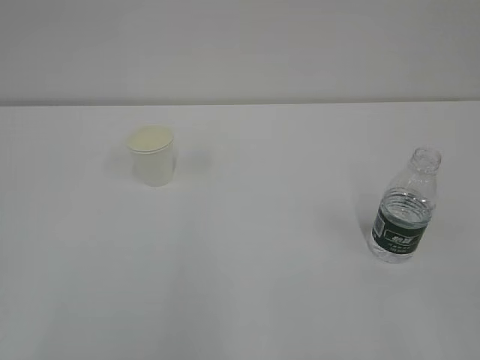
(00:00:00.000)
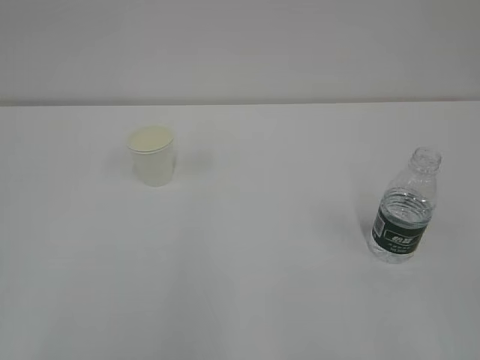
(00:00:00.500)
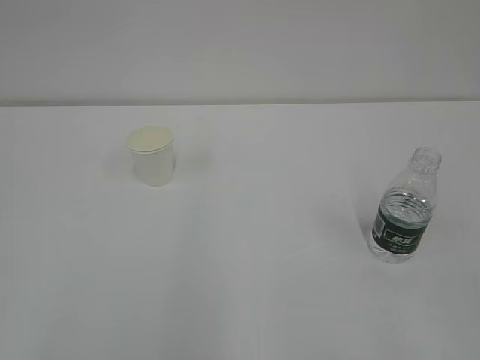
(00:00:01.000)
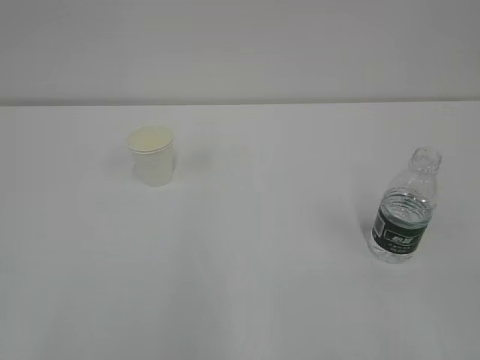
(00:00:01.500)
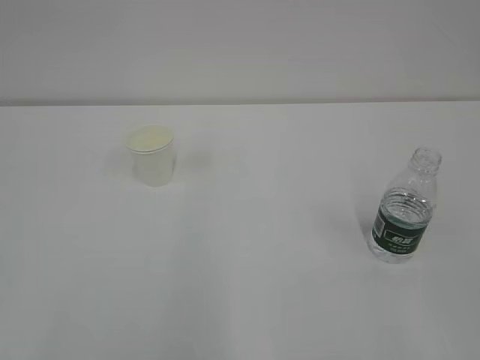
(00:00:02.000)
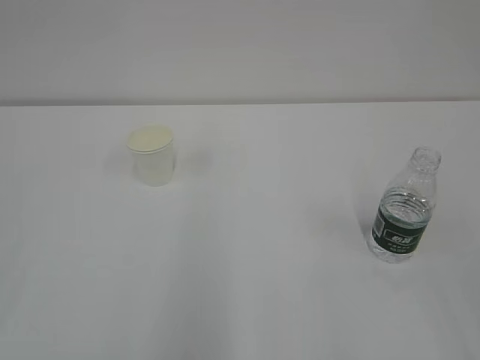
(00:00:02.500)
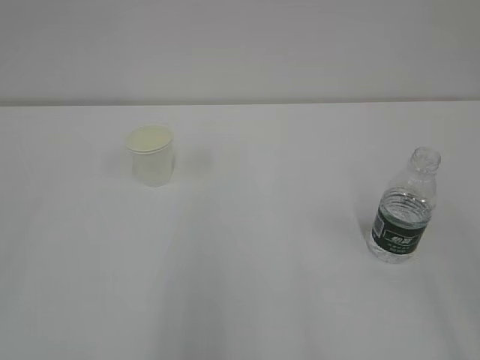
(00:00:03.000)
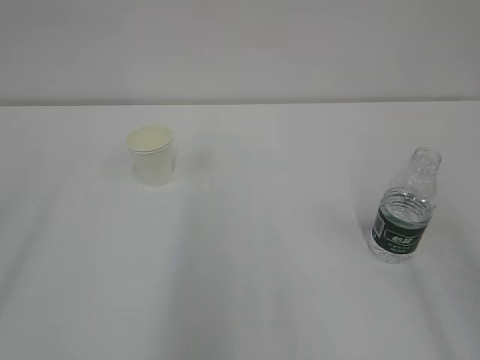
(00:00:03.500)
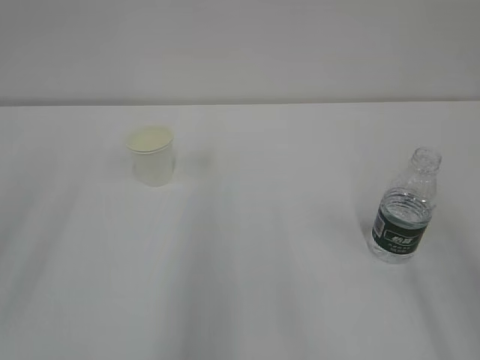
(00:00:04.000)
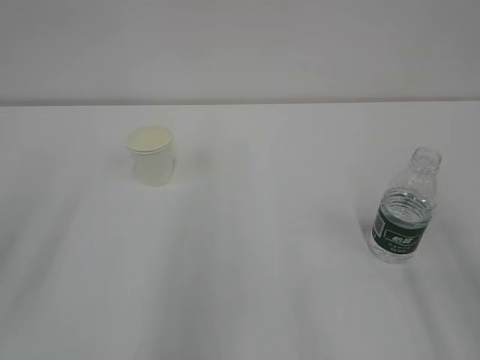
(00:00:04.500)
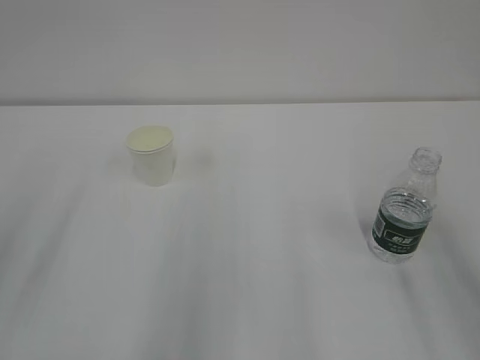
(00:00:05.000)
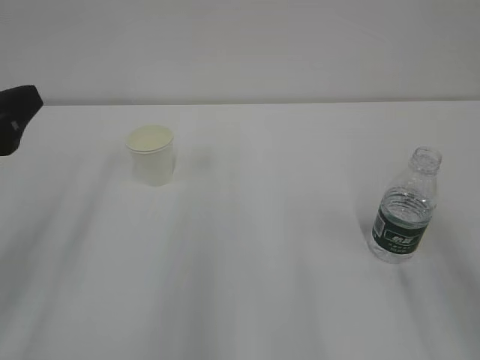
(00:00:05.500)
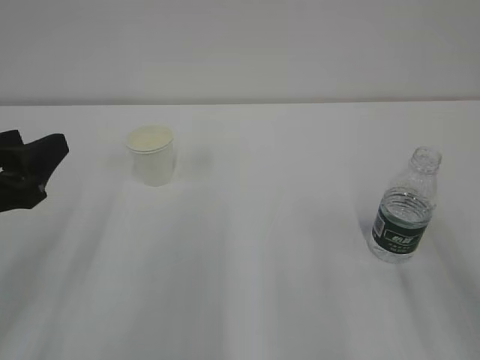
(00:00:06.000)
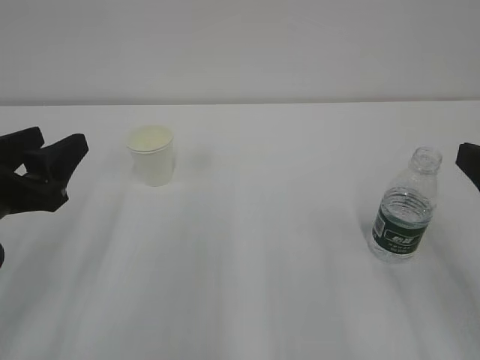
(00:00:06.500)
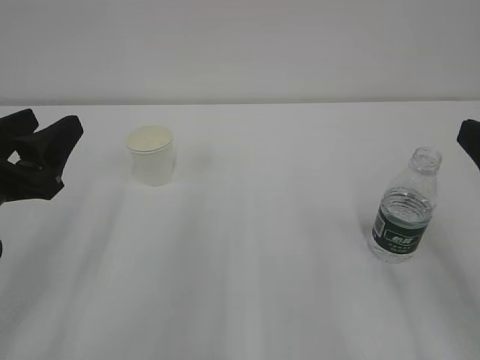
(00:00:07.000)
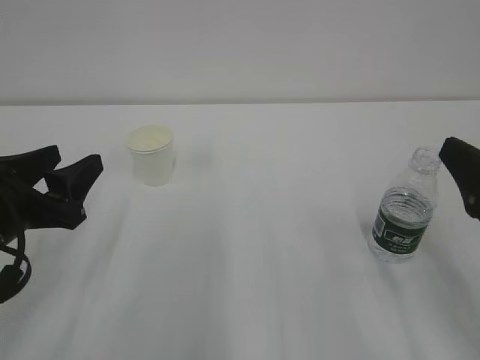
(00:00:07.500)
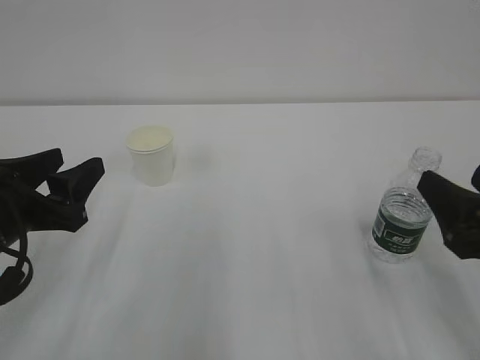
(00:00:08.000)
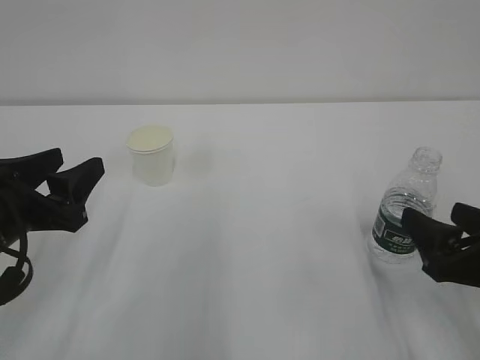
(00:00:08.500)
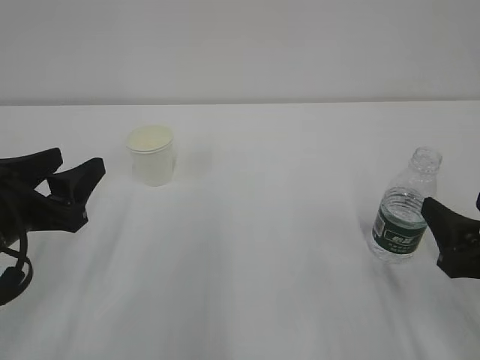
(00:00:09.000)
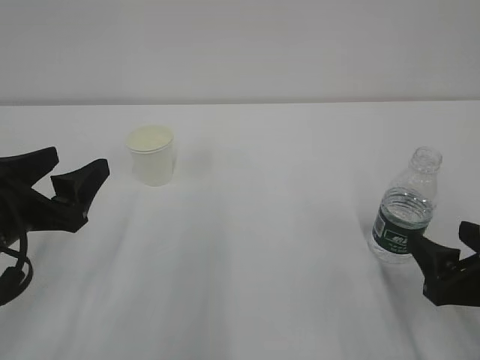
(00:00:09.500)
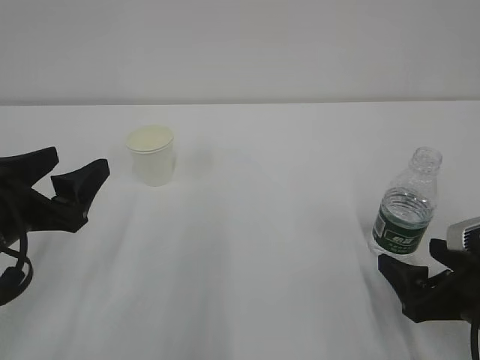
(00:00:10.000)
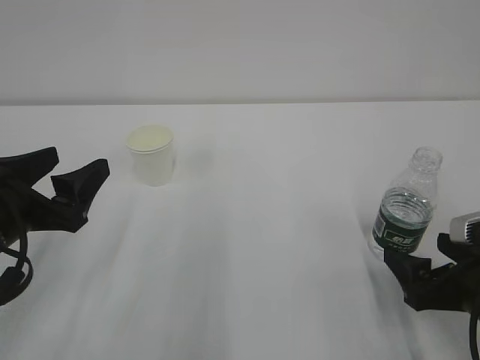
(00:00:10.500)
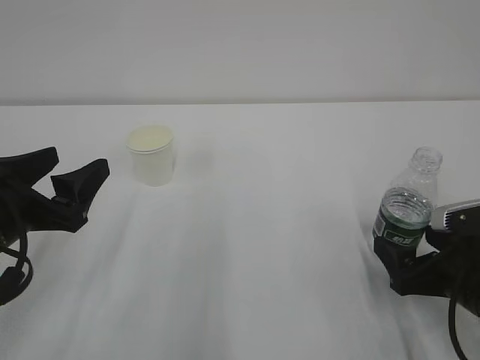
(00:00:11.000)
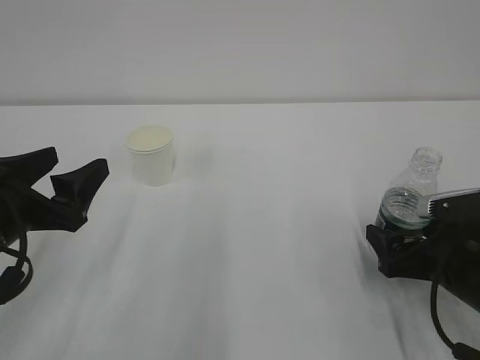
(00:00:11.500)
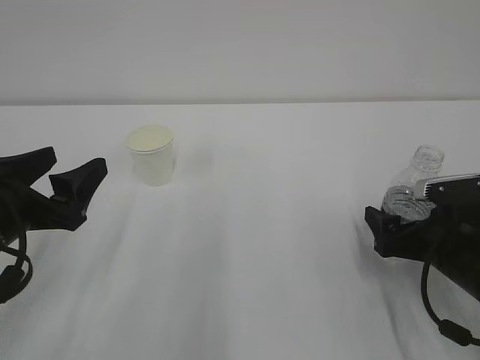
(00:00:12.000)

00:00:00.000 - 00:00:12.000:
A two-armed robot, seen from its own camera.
00:00:04.000 - 00:00:06.000: The left gripper goes roughly 15 cm downward and forward.
00:00:06.000 - 00:00:08.000: The right gripper goes some 10 cm downward. Meanwhile the left gripper changes place by some 5 cm.
00:00:08.000 - 00:00:10.000: The right gripper moves downward, roughly 10 cm.
00:00:10.000 - 00:00:12.000: The right gripper is displaced forward by roughly 5 cm.

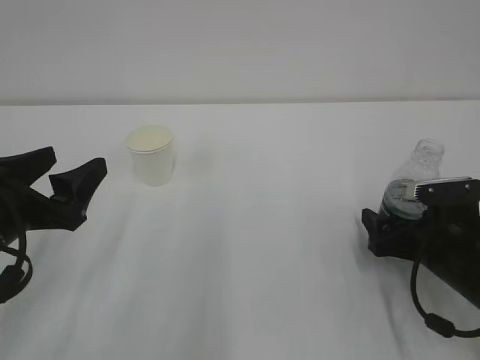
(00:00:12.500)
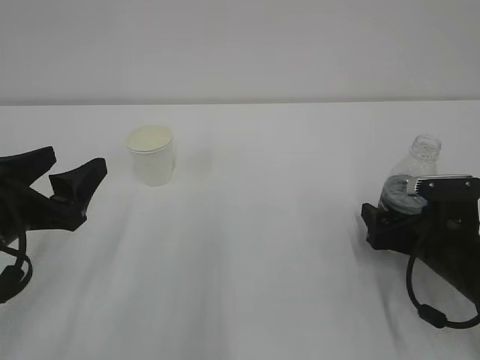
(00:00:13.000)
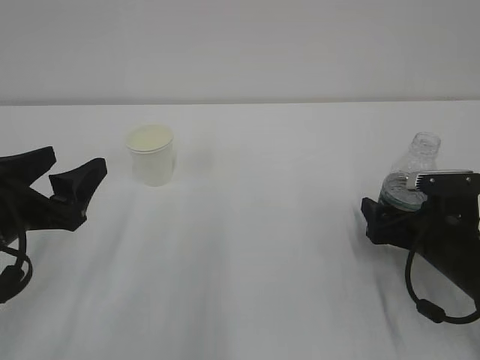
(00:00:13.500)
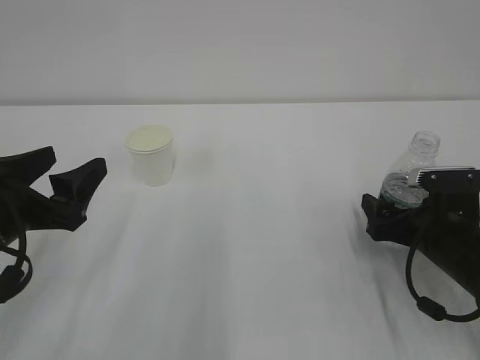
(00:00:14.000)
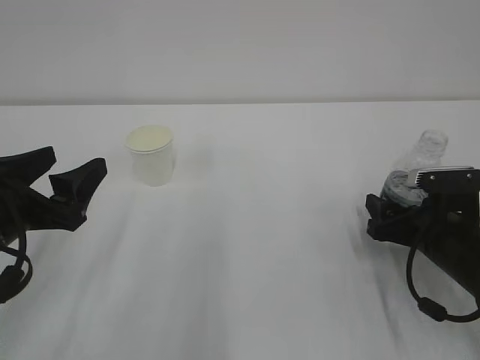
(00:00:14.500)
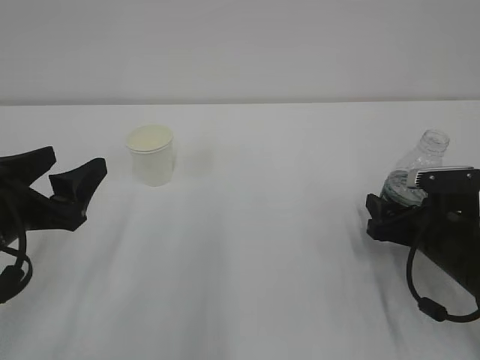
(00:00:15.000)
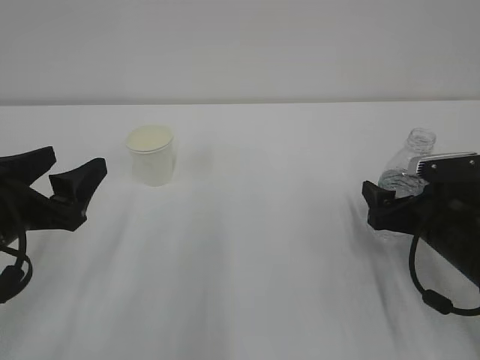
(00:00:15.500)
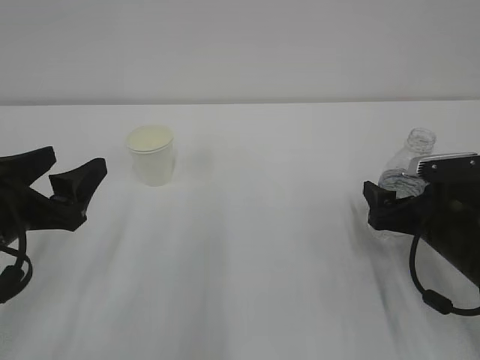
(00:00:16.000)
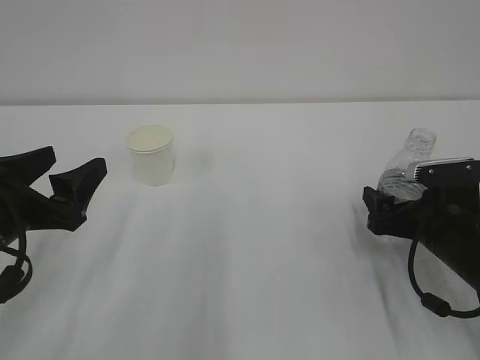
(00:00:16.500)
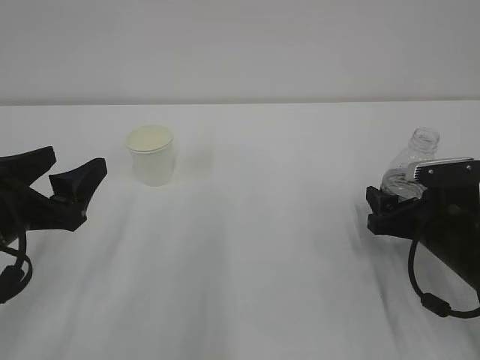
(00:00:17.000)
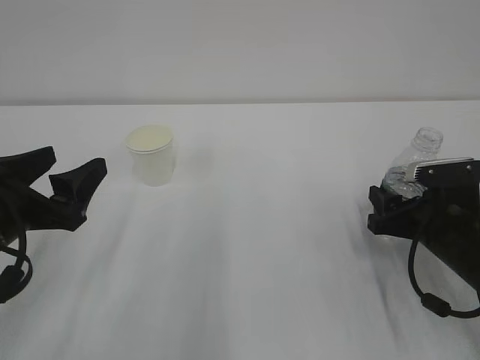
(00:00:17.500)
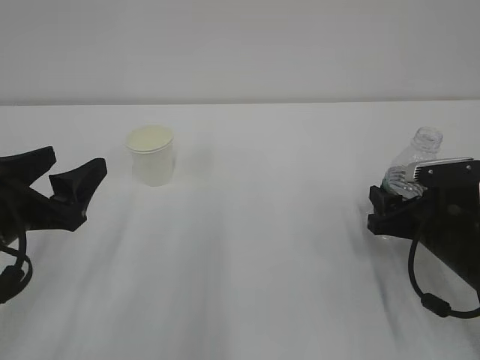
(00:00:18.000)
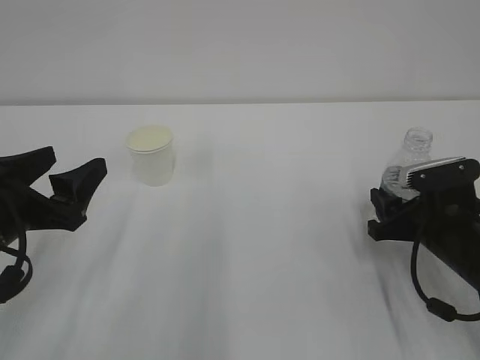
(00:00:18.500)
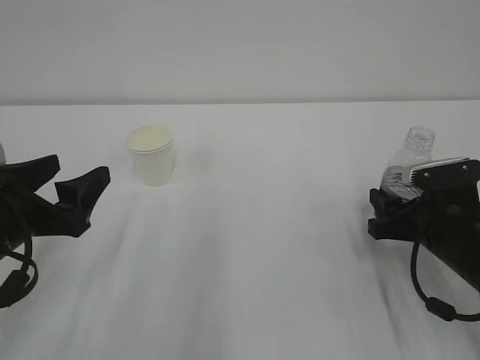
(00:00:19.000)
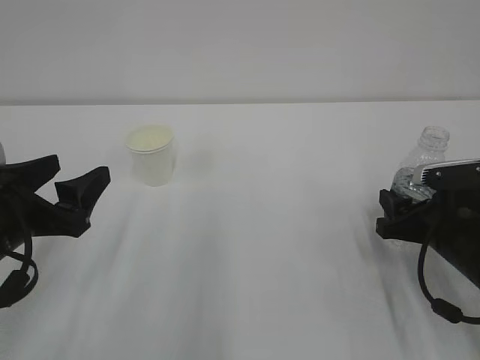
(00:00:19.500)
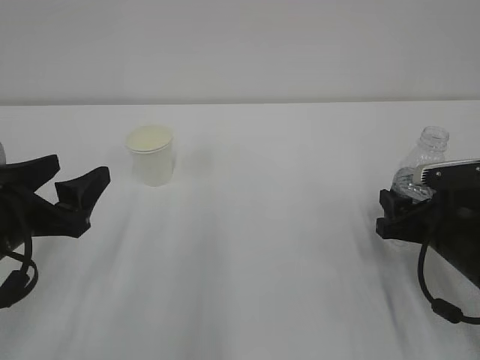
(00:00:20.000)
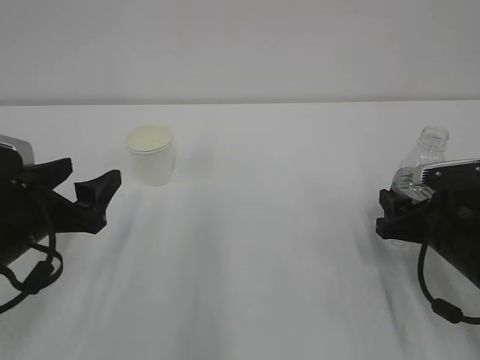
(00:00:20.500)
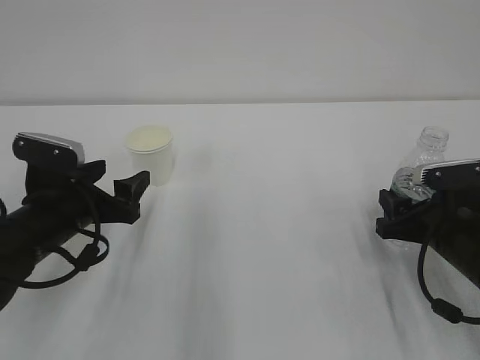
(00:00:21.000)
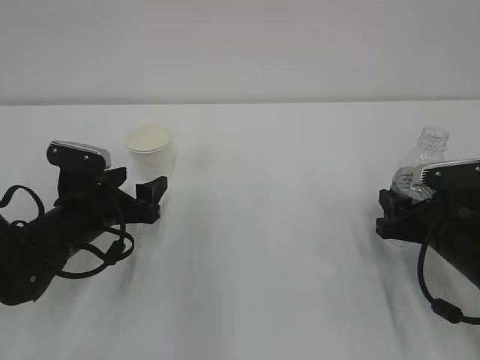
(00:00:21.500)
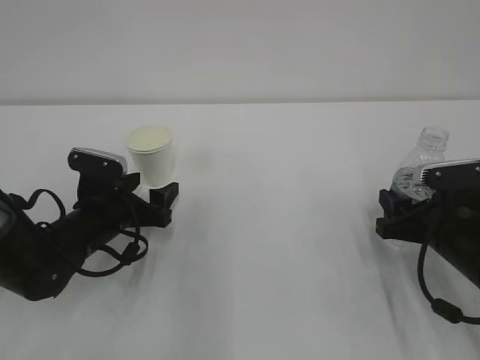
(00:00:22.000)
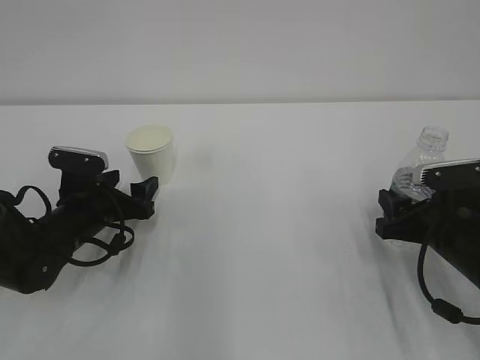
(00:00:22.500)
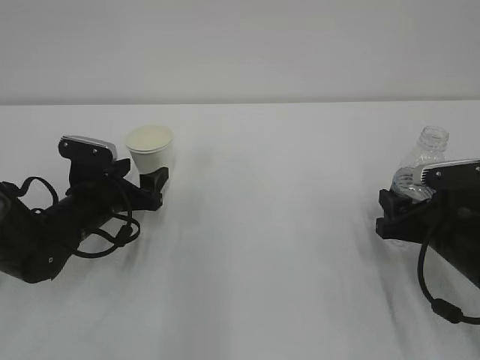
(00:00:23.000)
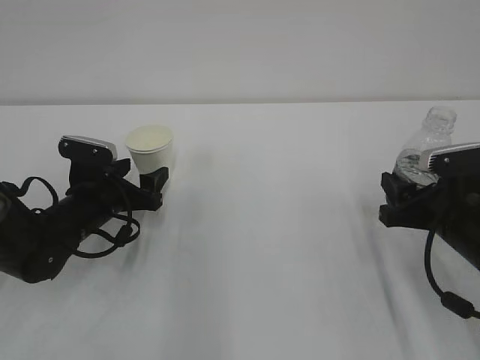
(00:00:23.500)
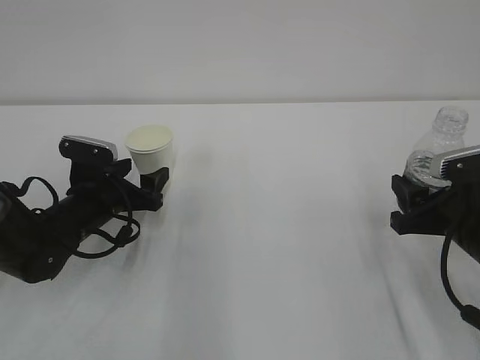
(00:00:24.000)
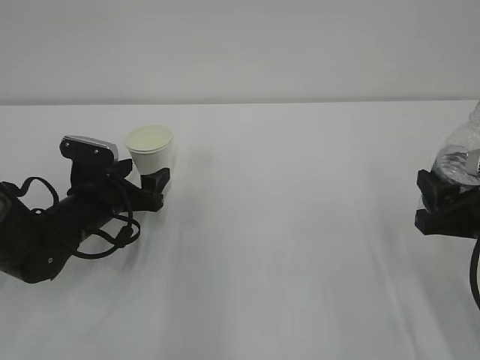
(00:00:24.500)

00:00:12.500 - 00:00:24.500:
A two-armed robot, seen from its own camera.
00:00:12.500 - 00:00:14.500: The right gripper closes its fingers.
00:00:14.500 - 00:00:16.500: The right gripper opens.
00:00:16.500 - 00:00:18.500: The right gripper closes its fingers.
00:00:18.500 - 00:00:20.500: The grippers move only a little.
00:00:20.500 - 00:00:22.500: The left gripper is displaced forward and downward by some 15 cm.
00:00:22.500 - 00:00:24.500: The right gripper moves upward, some 5 cm.

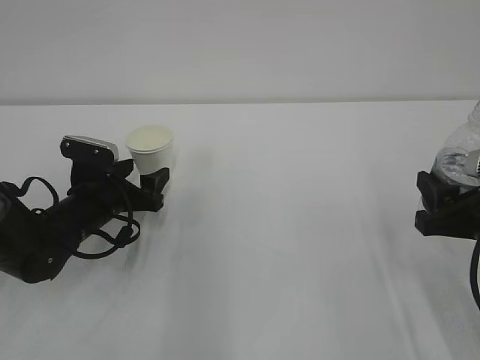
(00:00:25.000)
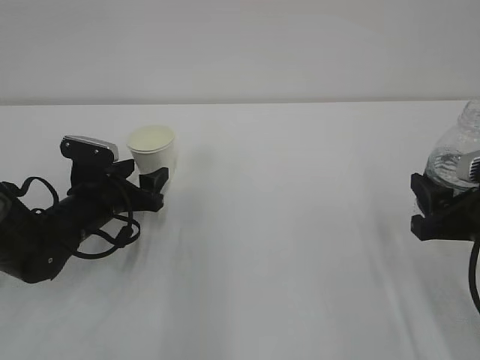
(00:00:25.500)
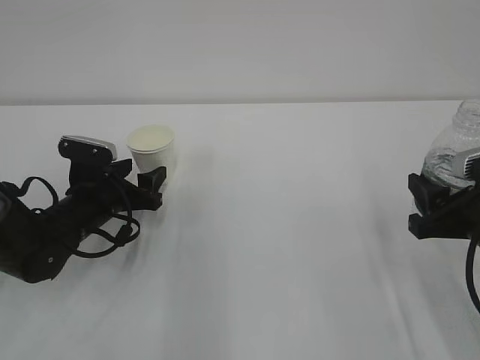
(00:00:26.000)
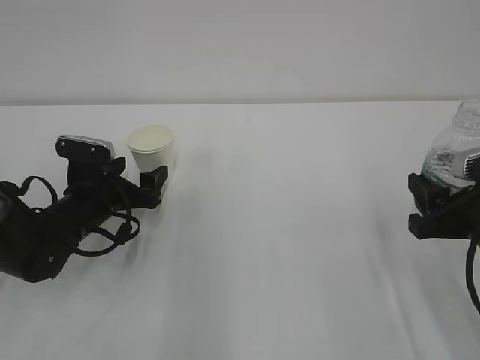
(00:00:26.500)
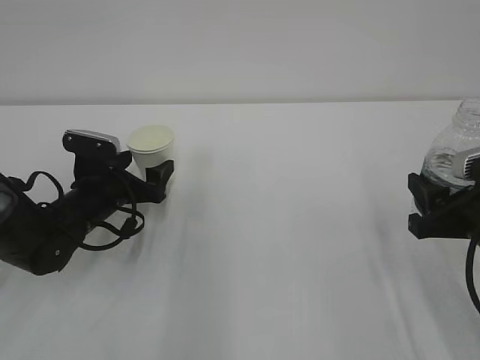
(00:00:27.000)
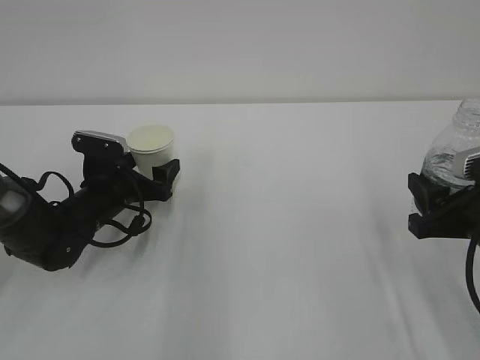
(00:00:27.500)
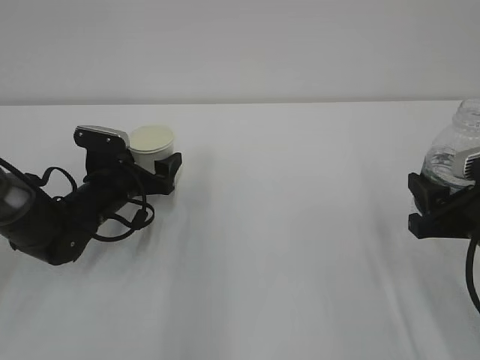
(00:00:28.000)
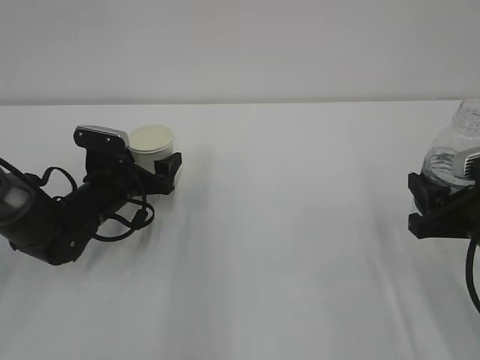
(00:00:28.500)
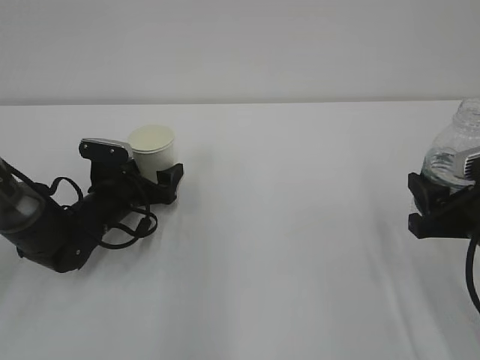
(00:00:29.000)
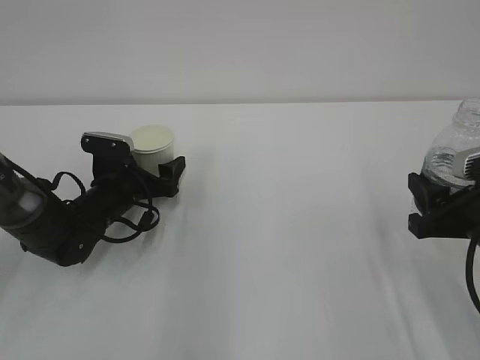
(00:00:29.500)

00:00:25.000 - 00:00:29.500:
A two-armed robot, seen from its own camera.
00:00:25.000 - 00:00:27.000: Neither gripper changes place.
00:00:27.000 - 00:00:29.500: The grippers move only a little.
